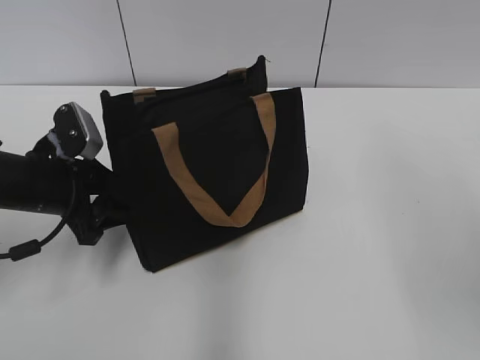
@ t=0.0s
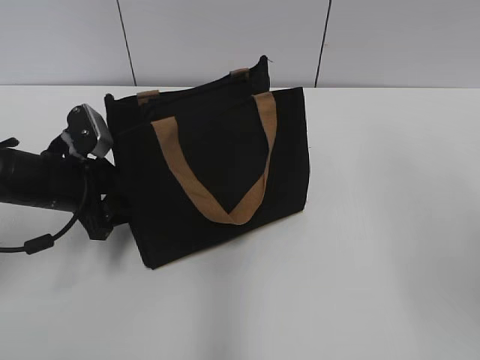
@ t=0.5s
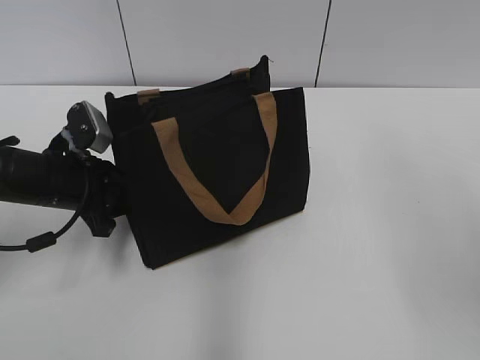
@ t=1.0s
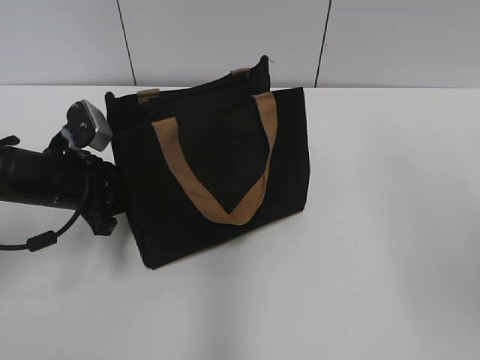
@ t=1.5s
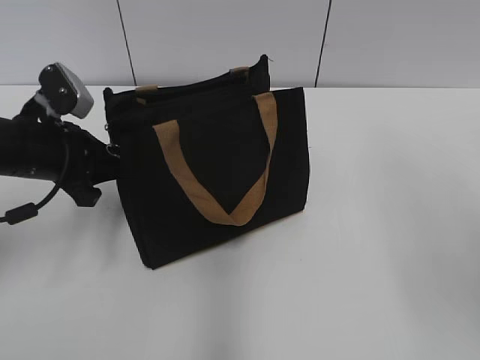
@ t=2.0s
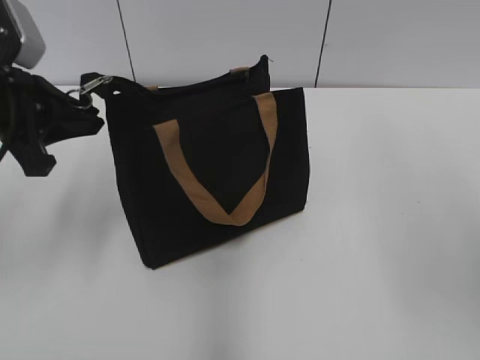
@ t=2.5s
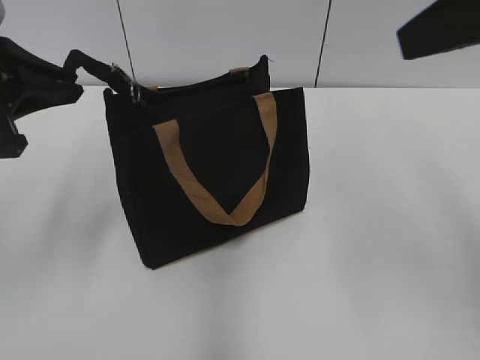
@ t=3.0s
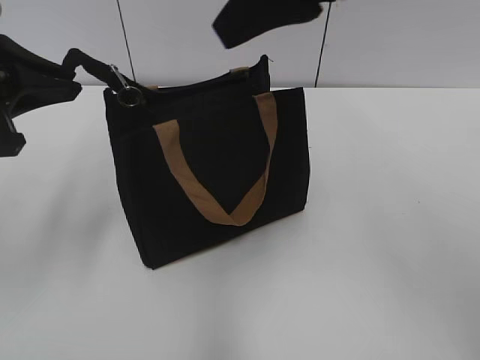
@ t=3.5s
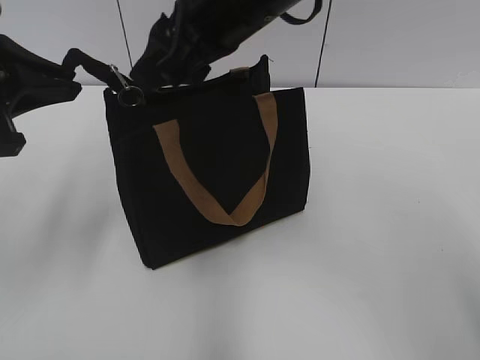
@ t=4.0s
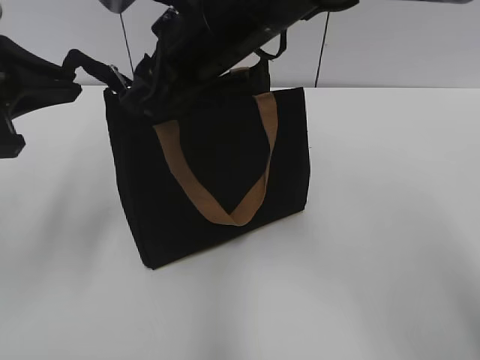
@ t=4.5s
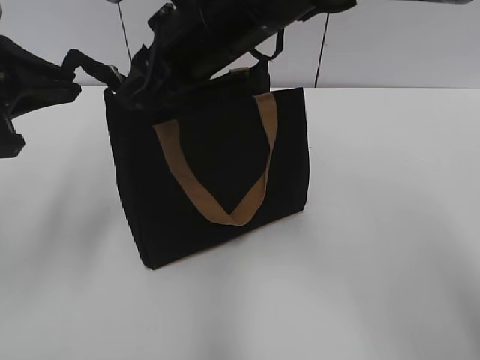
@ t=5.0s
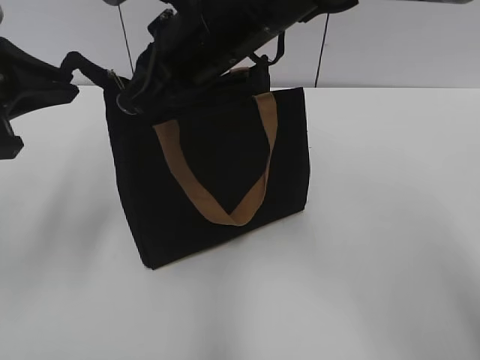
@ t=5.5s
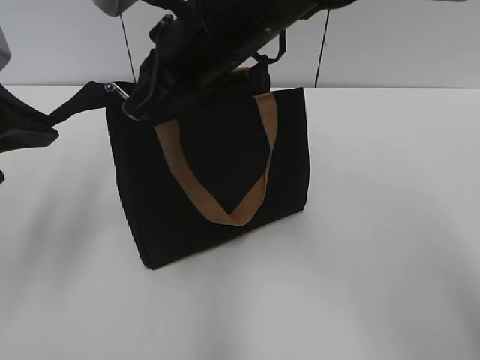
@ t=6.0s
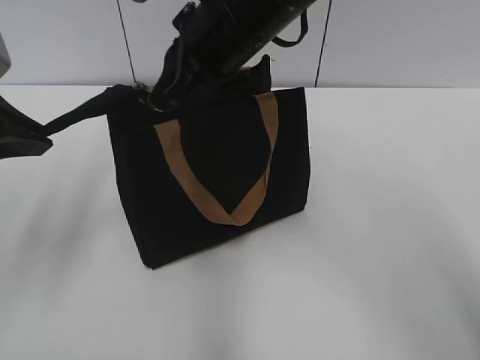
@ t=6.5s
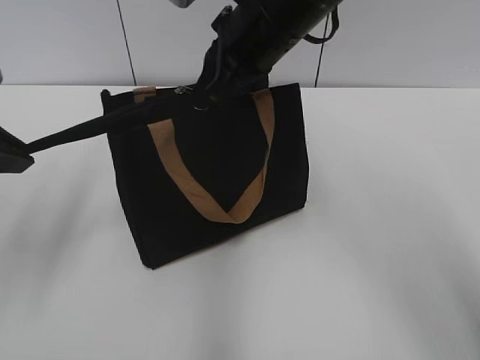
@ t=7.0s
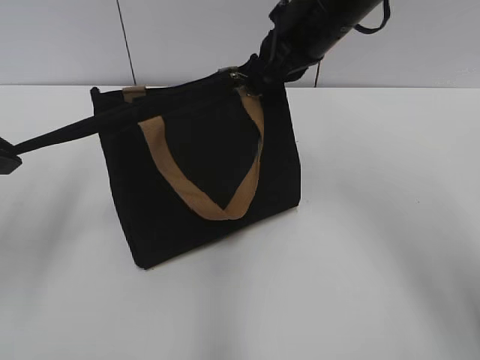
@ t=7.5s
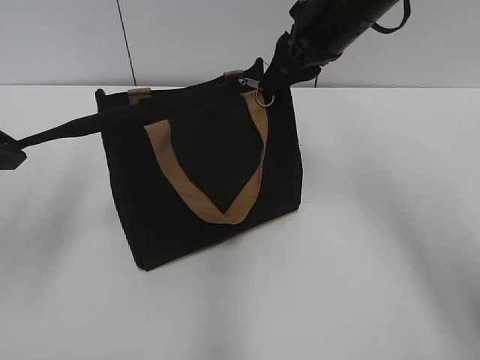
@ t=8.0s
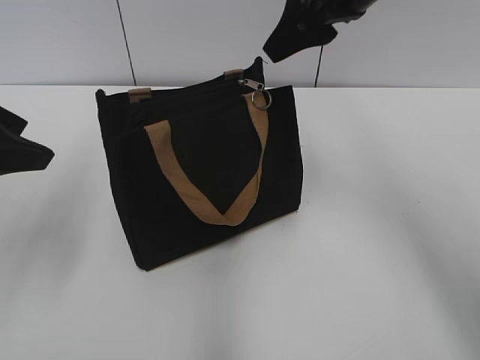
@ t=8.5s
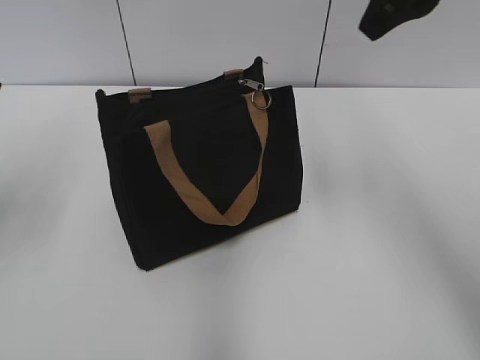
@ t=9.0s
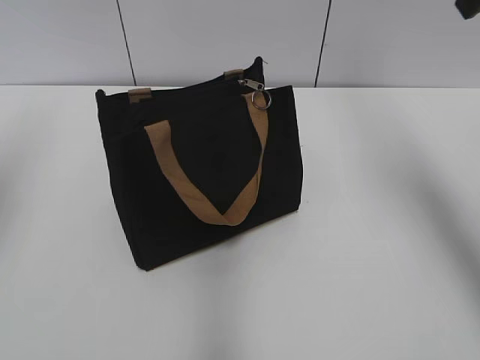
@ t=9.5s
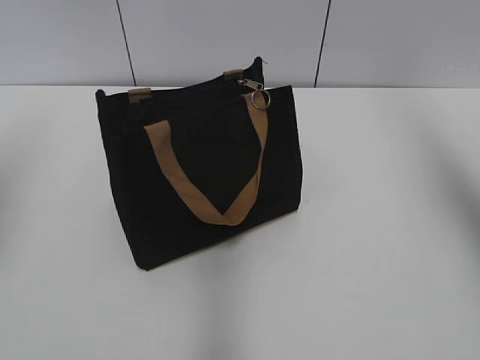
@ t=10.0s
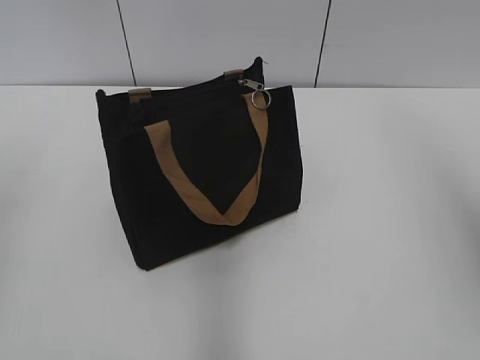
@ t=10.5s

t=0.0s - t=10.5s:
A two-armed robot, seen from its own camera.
Step, t=0.0s - t=7.5s: Zip up the bag with your right hand.
t=0.0s - t=2.0s: The left gripper closes its fingers.
t=2.0s - t=4.0s: The right gripper moves to the left and forward, roughly 30 cm, while the left gripper heads upward and backward, covering some 15 cm.
t=4.0s - t=6.5s: The right gripper closes its fingers.
t=6.5s - t=8.5s: The left gripper opens its fingers; the right gripper is displaced to the right by some 10 cm, and opens.
t=8.5s - t=10.5s: The left gripper moves upward, about 5 cm, while the right gripper is displaced backward, to the right and upward by some 25 cm.

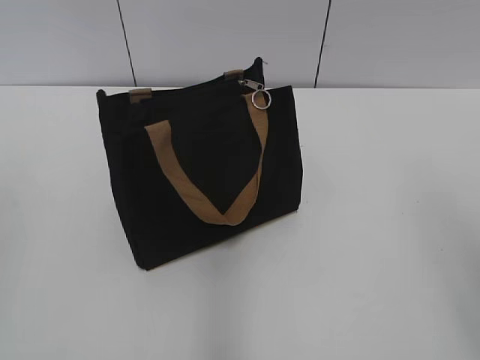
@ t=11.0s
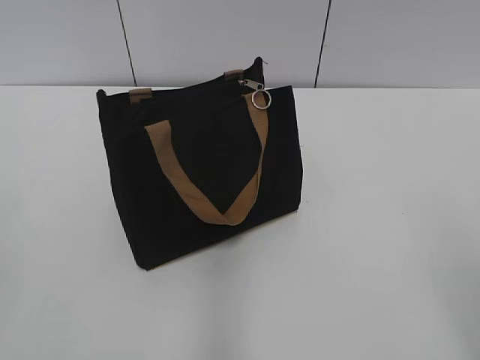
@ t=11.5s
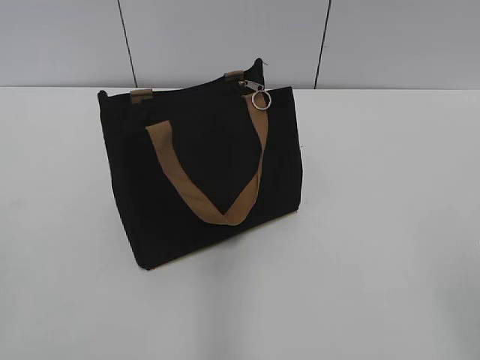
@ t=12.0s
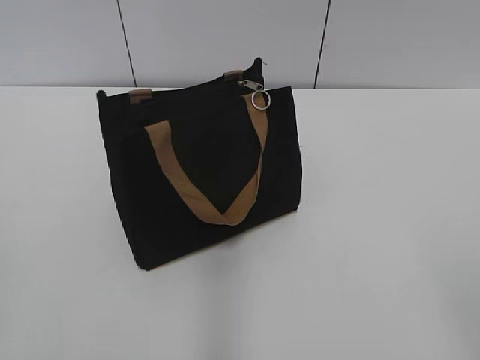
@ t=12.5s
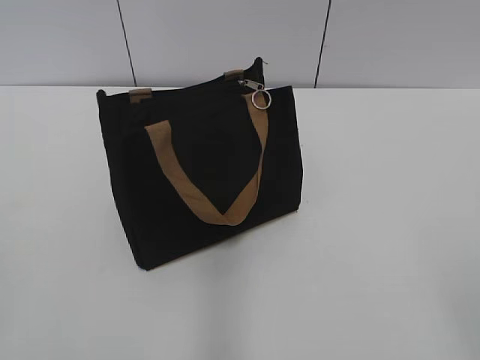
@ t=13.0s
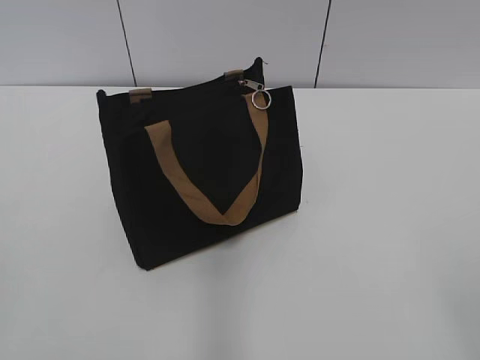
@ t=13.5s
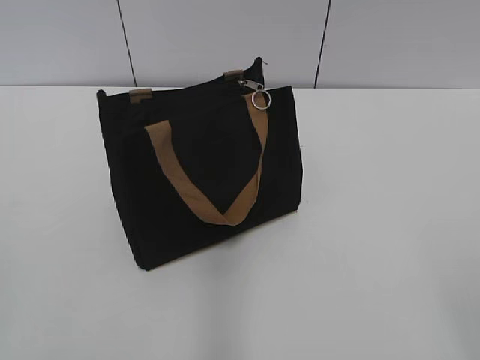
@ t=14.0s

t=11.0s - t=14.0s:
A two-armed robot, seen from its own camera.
t=12.5s - t=14.0s: The two grippers keep their place.
